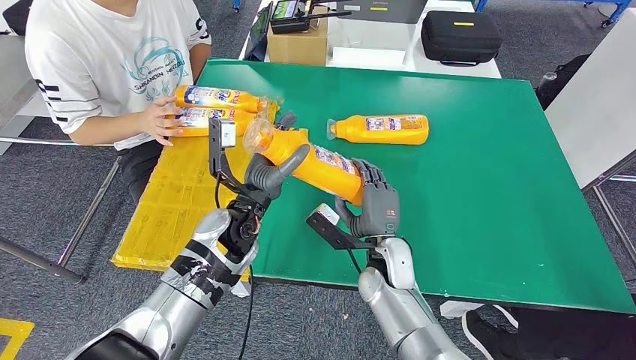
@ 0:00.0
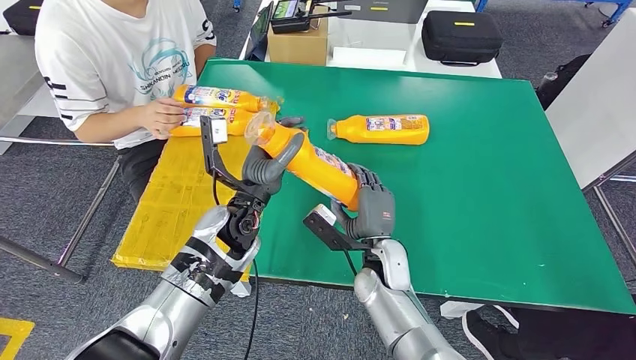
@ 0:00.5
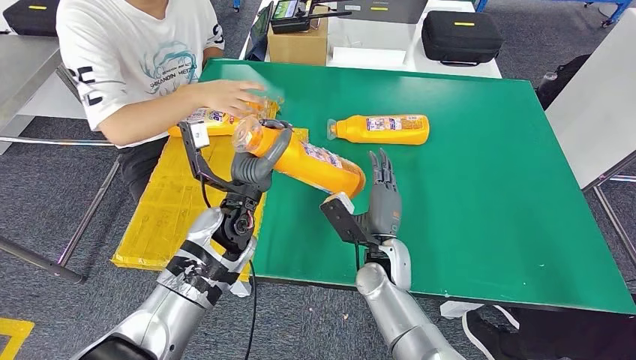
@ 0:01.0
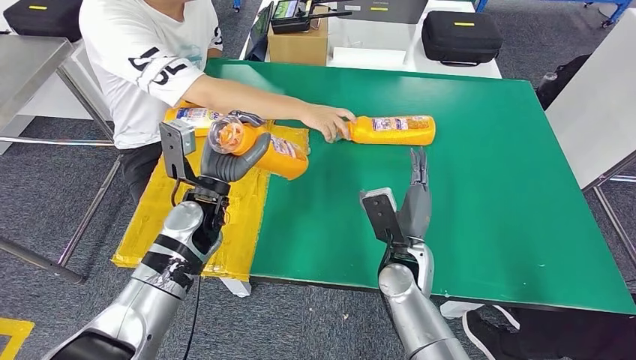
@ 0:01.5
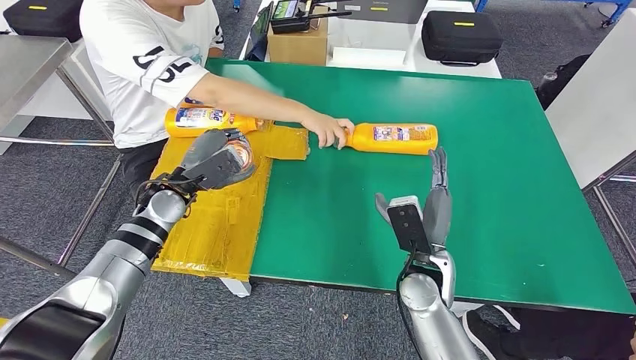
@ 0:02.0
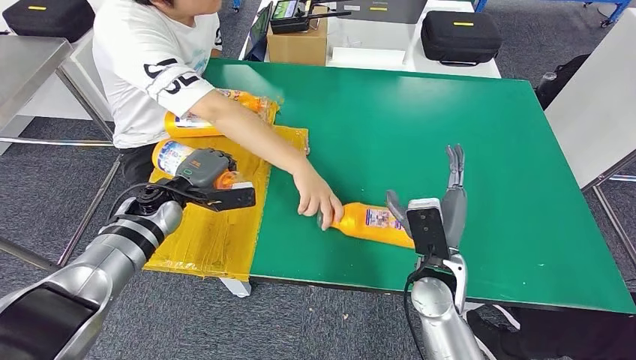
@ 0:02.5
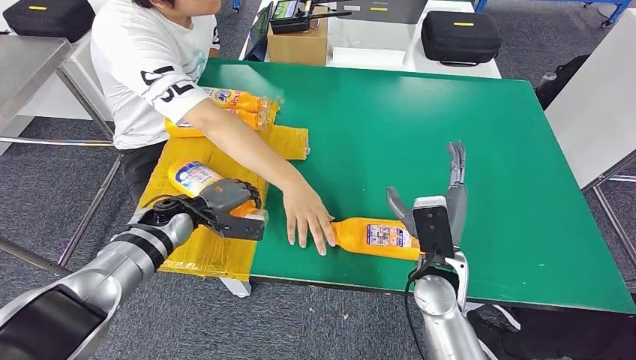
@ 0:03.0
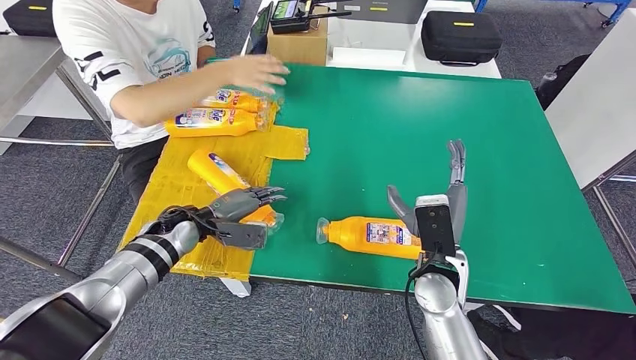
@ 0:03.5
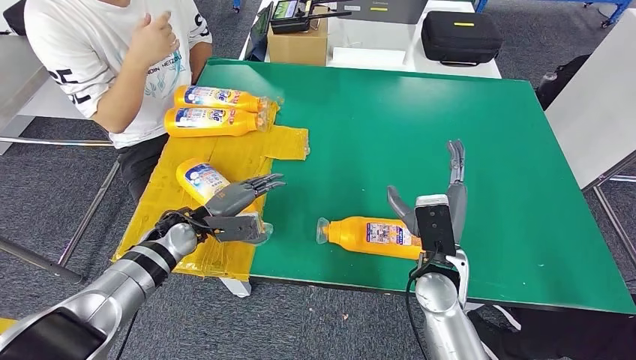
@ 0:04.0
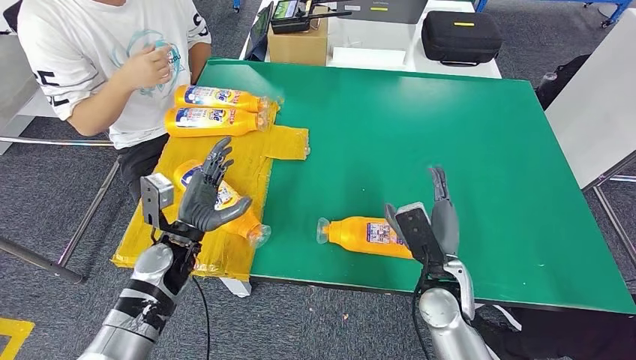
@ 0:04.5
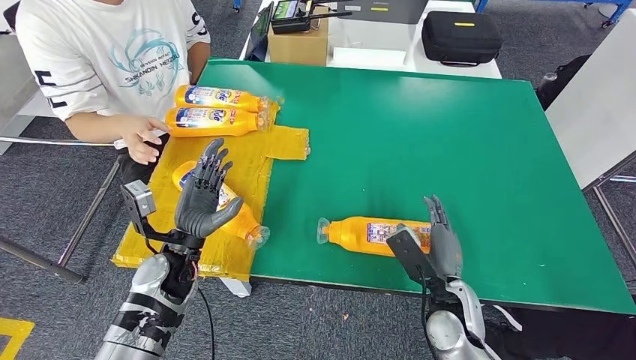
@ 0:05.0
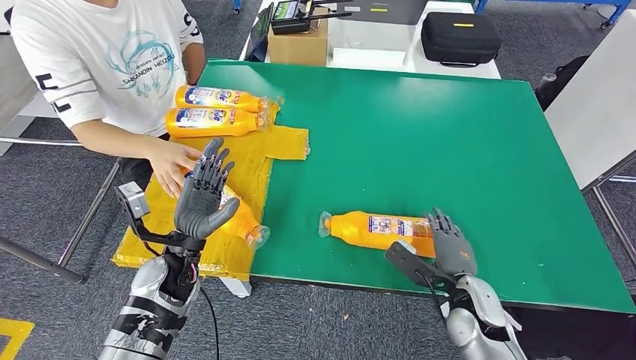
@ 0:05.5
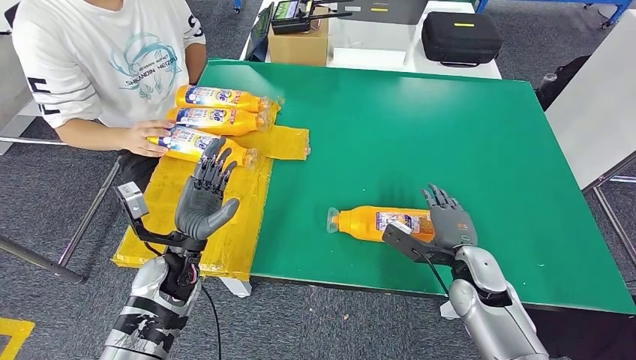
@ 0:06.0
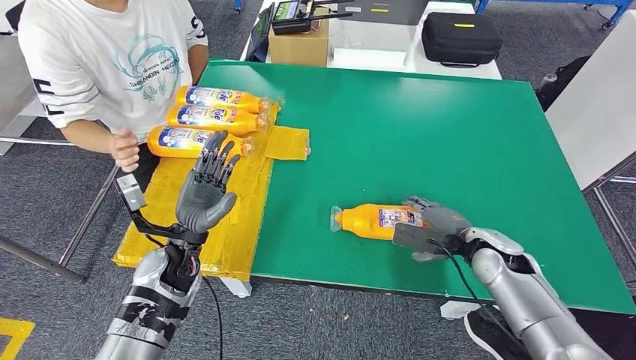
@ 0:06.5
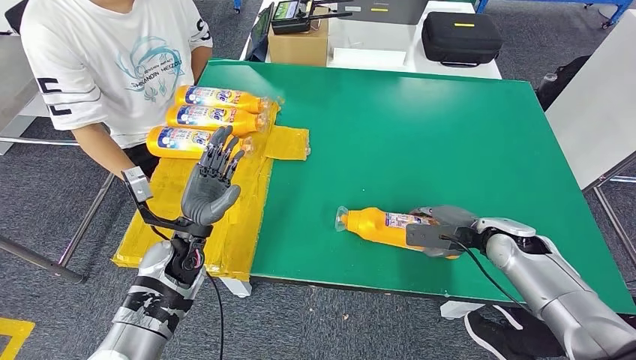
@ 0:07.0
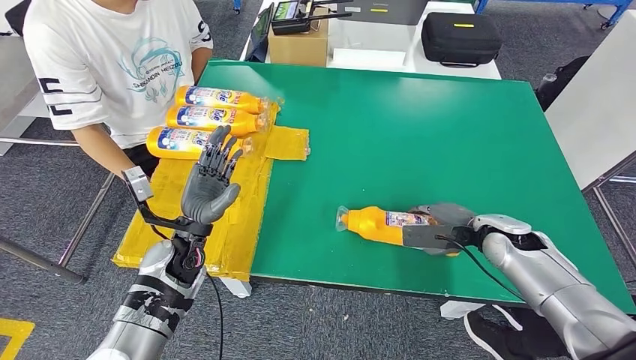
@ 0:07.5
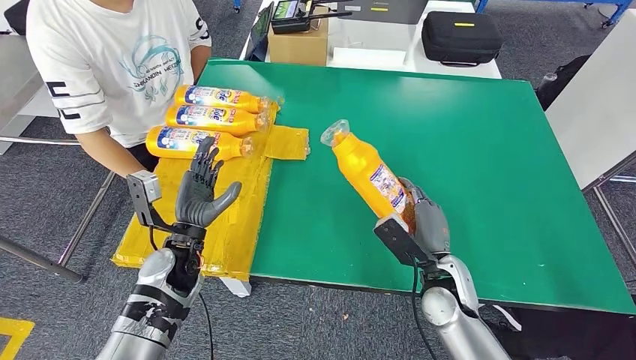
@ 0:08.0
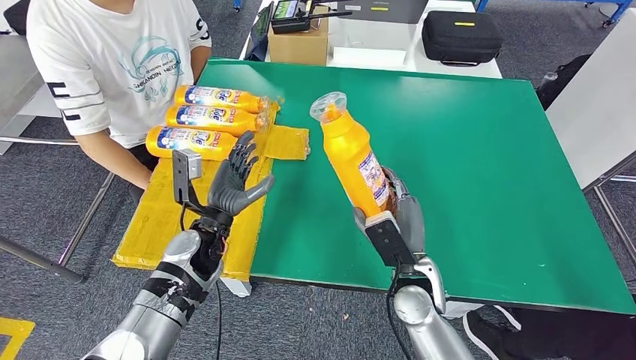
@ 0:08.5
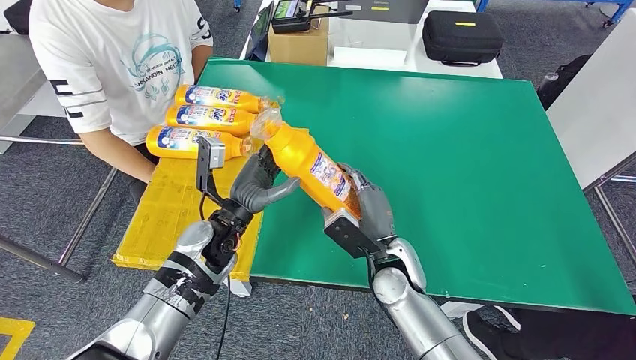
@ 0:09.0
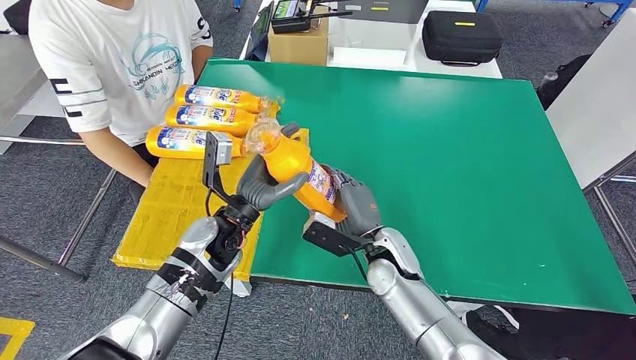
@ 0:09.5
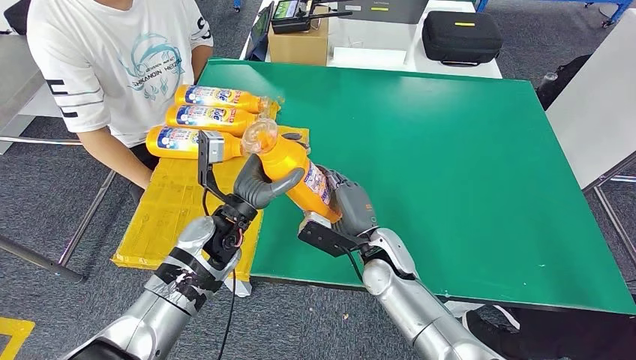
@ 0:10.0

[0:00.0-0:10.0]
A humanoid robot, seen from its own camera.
Step, 0:00.0 to 0:04.5: Flip the fast-moving consumer goods bottle to the front side.
Step, 0:05.5 to 0:08.0: Pick up the fast-moving consumer goods bottle from the table.
0:06.0 to 0:08.0: The right hand moves to the left, roughly 5 cm.
0:08.0 to 0:10.0: The left hand shifts some 10 cm to the right; the right hand shifts some 10 cm to the left.

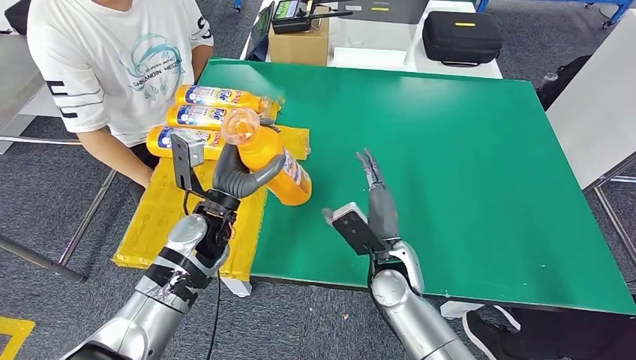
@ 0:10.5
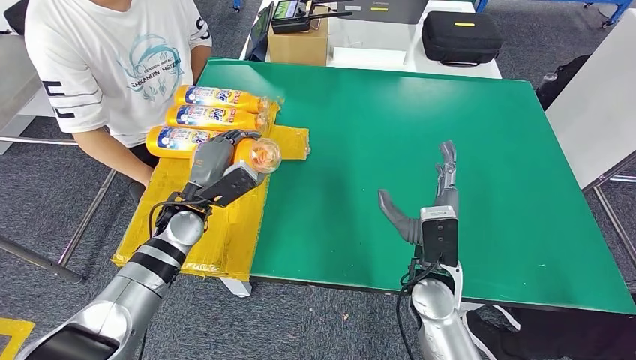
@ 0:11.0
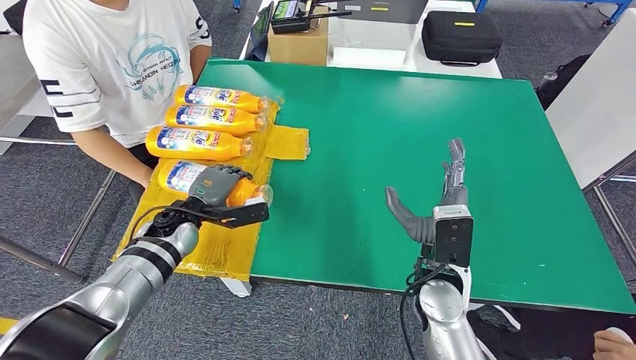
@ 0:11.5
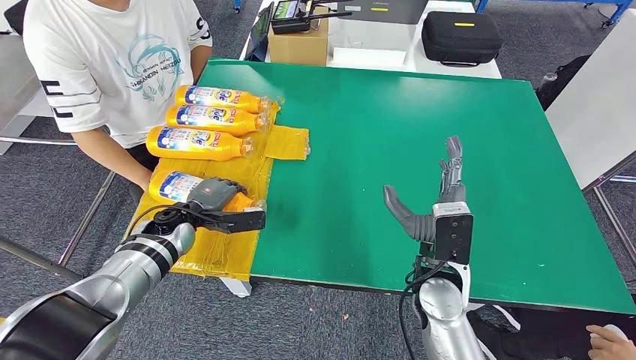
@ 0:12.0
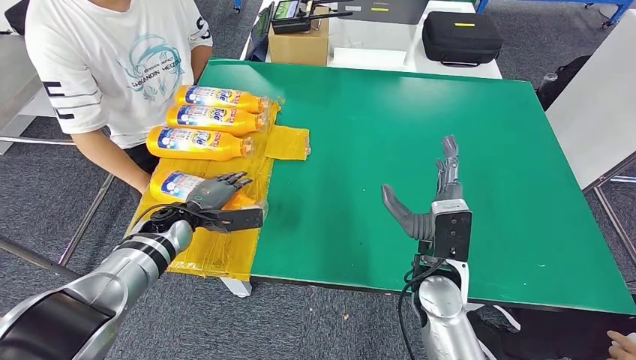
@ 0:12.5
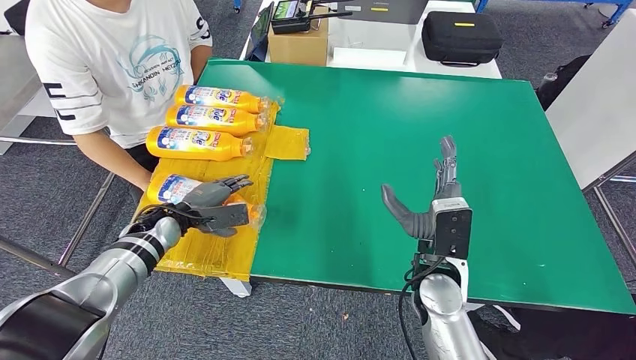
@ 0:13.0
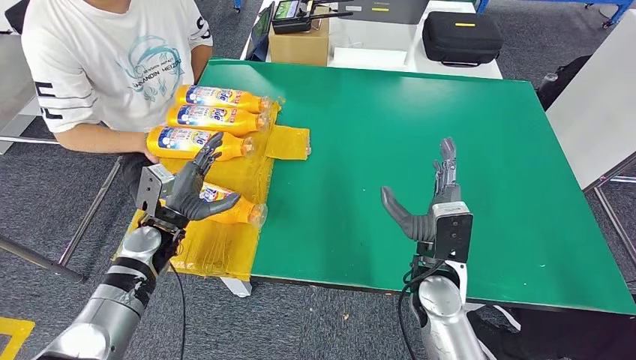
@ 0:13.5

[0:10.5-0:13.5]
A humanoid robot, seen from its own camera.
Step, 0:10.5 to 0:13.5: Flip the fast-moving consumer goods bottle to the front side.
